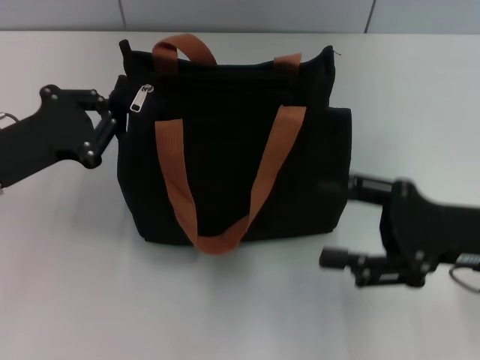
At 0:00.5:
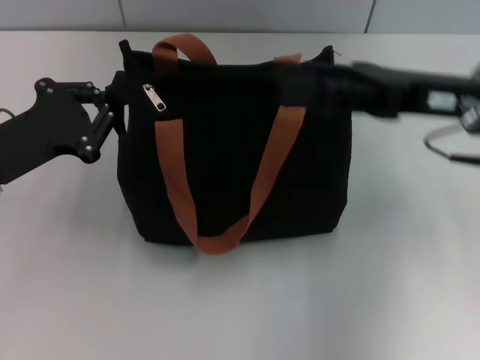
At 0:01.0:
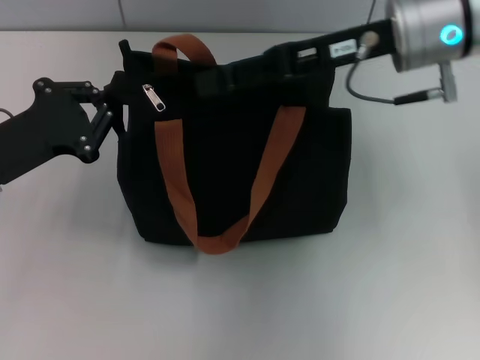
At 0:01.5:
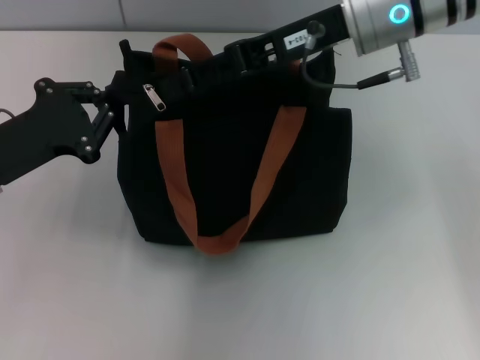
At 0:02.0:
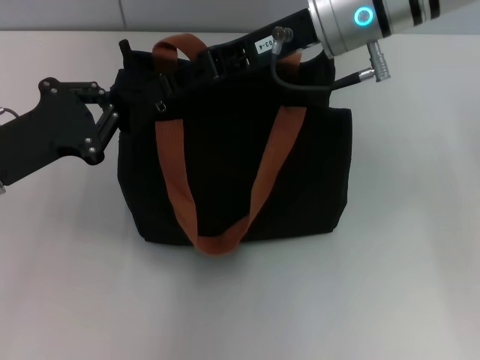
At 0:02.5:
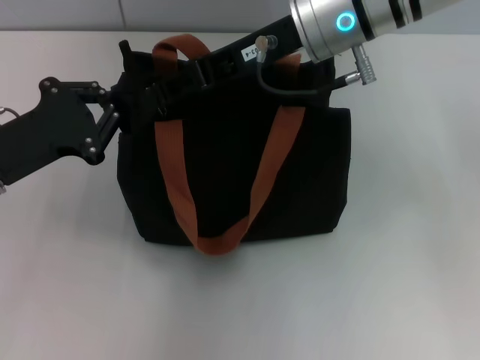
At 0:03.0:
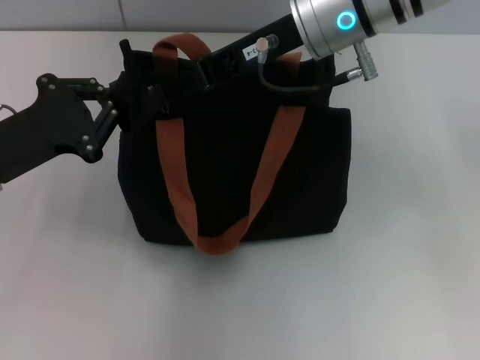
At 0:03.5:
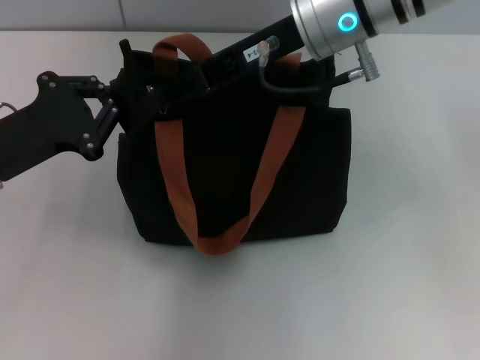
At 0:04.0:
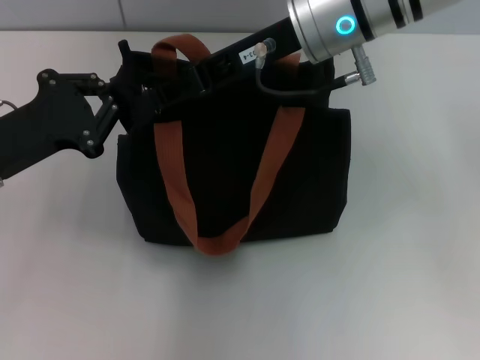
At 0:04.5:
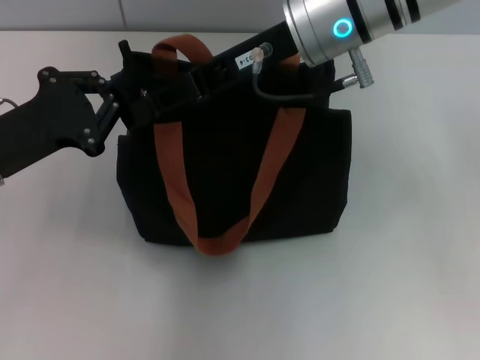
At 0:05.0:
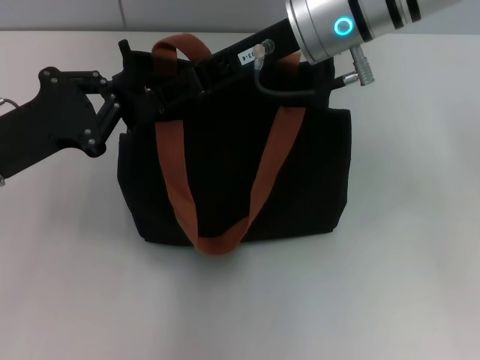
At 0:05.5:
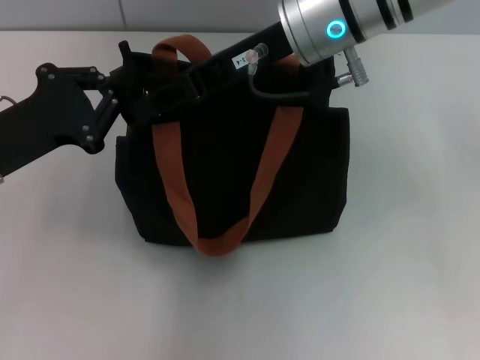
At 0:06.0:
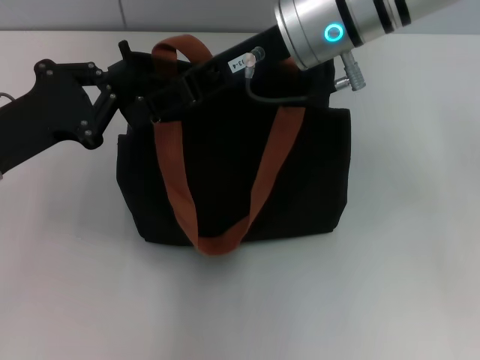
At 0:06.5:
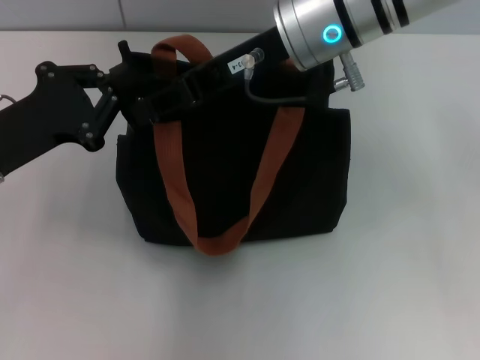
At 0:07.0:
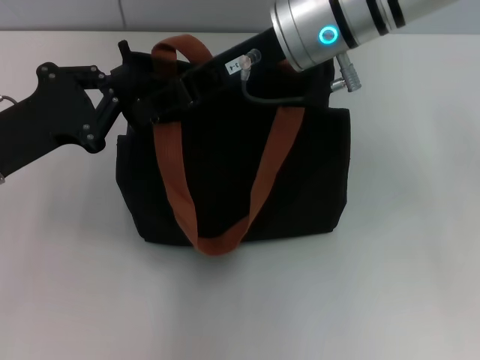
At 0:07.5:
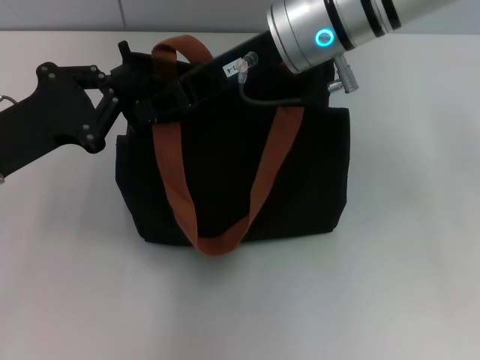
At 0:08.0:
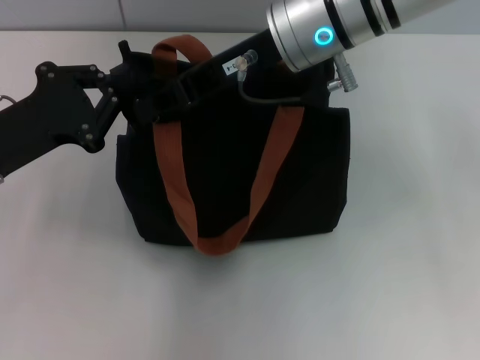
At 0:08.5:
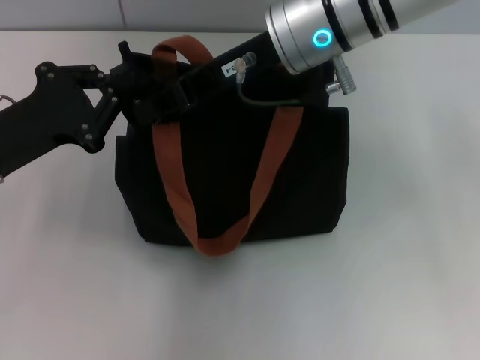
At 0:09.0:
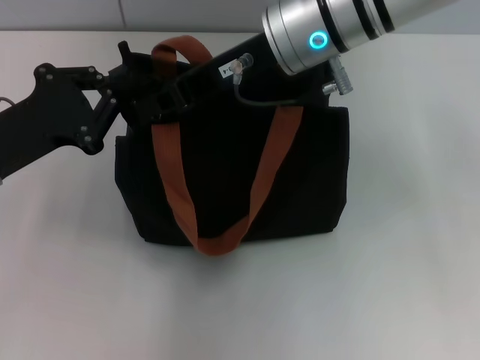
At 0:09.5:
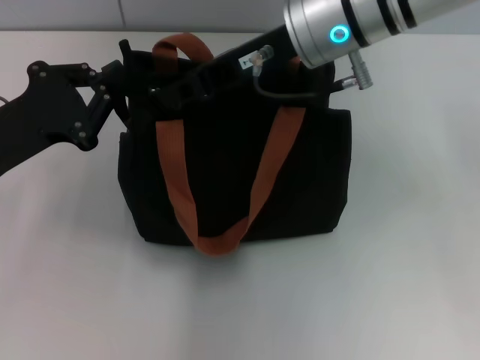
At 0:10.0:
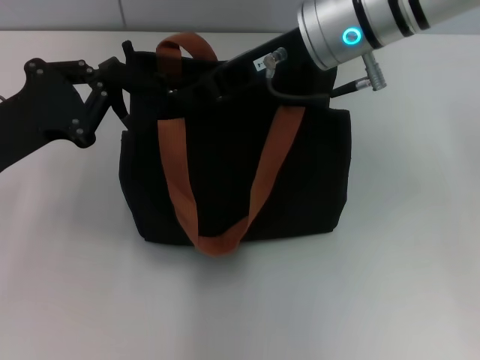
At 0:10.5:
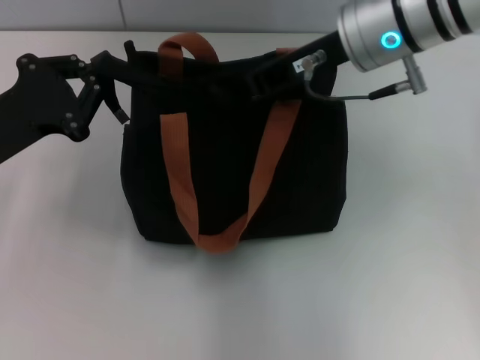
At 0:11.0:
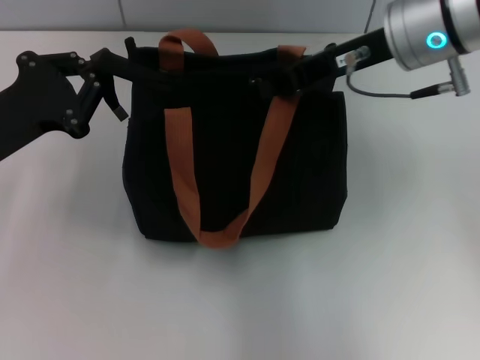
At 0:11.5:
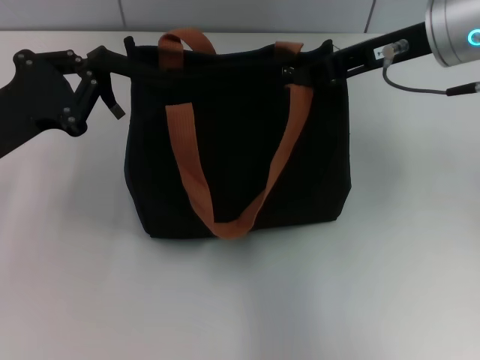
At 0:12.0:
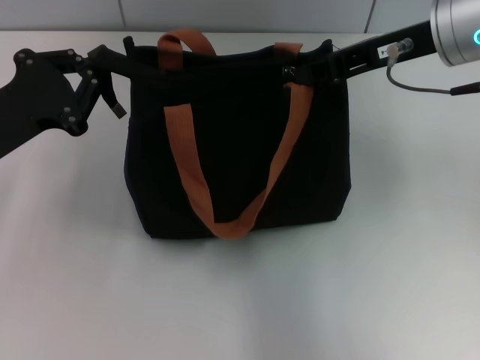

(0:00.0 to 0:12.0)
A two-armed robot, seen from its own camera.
0:00.0 - 0:02.0: The right gripper moves to the left, forward and upward, roughly 25 cm.
0:02.0 - 0:04.0: The grippers move only a little.
0:04.0 - 0:06.0: Neither gripper changes place.
0:06.0 - 0:08.0: Both grippers stay about where they are.
0:08.0 - 0:10.0: There are only small adjustments of the grippers.
0:10.0 - 0:12.0: The right gripper shifts some 10 cm to the right.

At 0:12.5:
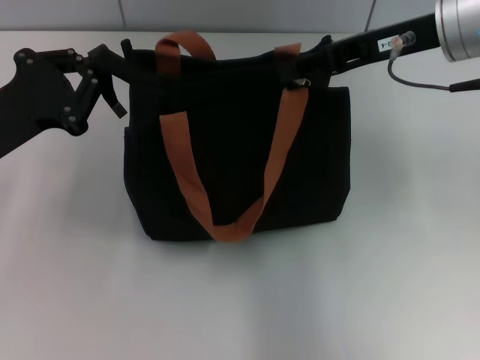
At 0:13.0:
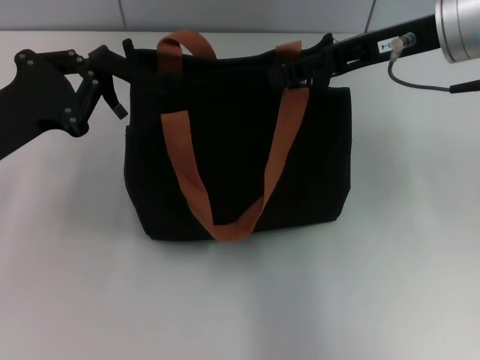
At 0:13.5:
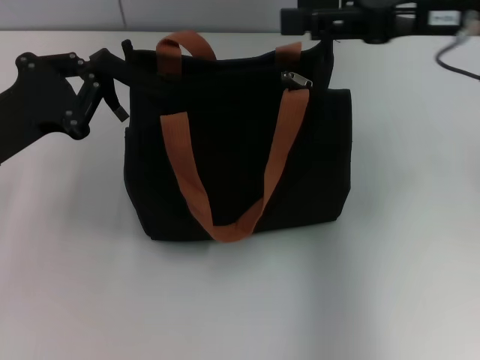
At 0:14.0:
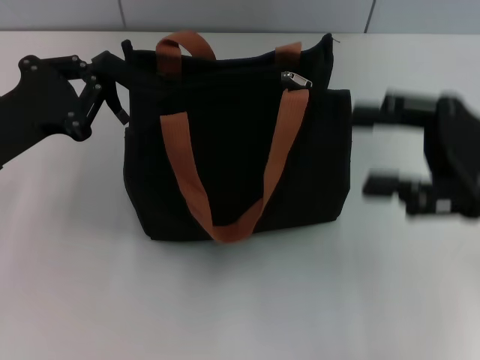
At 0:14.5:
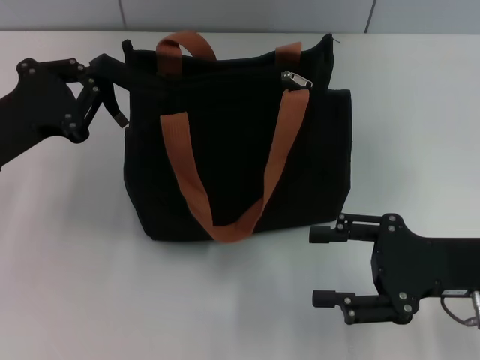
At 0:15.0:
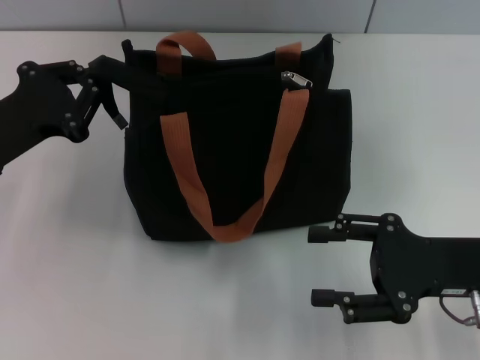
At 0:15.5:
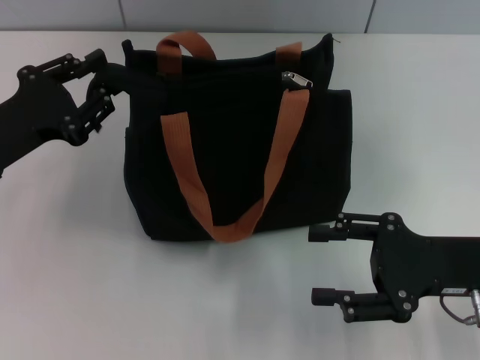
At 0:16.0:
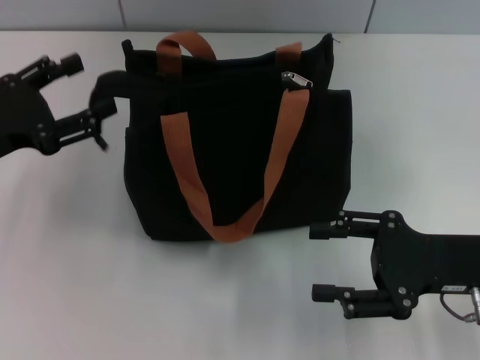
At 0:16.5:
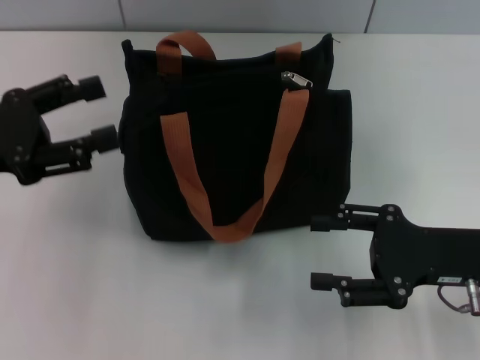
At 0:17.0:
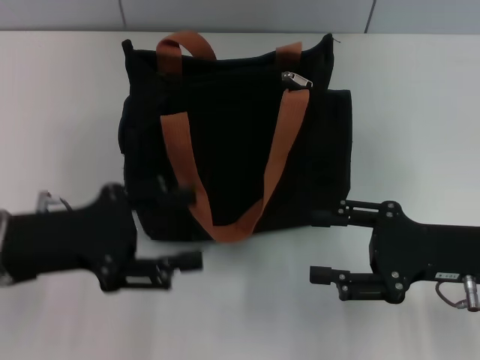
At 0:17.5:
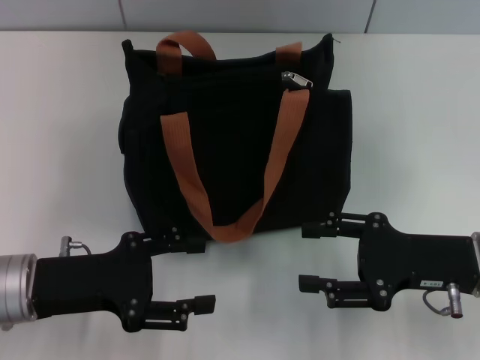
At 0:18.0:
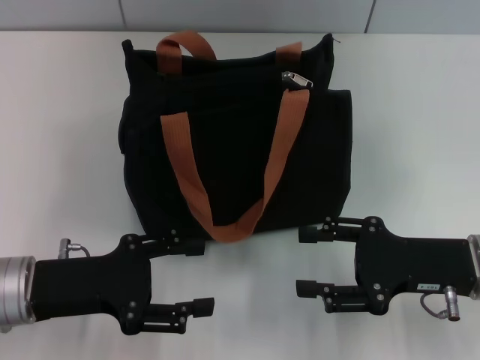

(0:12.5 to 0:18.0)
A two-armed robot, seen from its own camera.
0:12.5 - 0:14.5: The right gripper shifts approximately 20 cm downward, backward and to the right, and opens its fingers.
0:14.5 - 0:16.0: The left gripper opens its fingers.
0:16.0 - 0:18.0: The left gripper heads to the right, backward and downward, covering about 10 cm.

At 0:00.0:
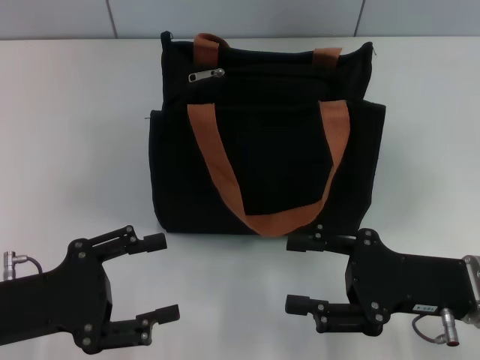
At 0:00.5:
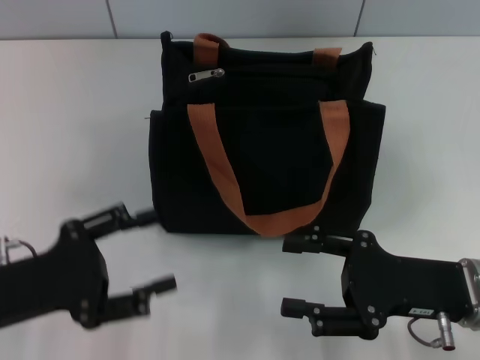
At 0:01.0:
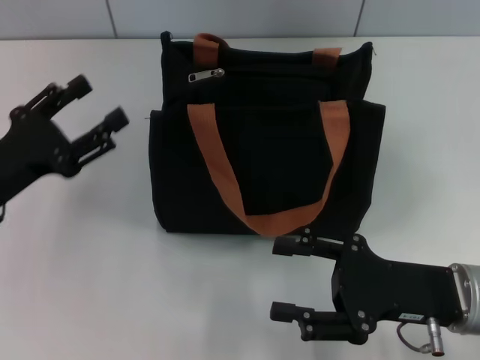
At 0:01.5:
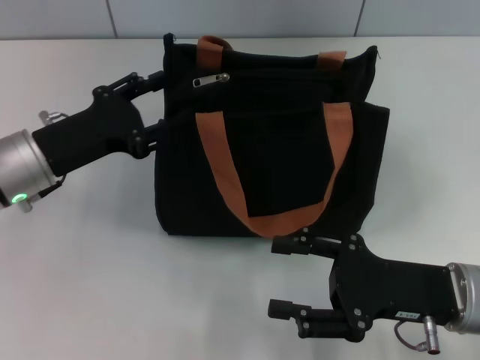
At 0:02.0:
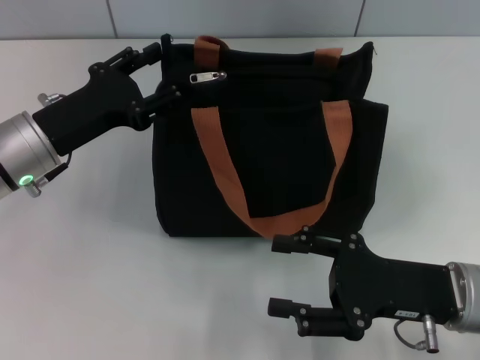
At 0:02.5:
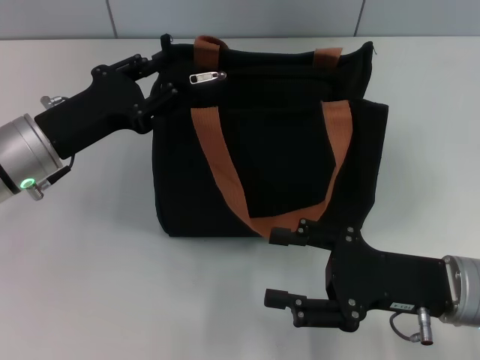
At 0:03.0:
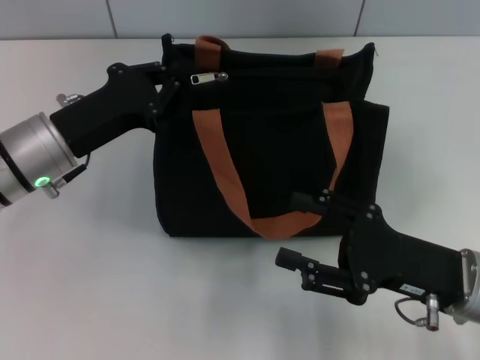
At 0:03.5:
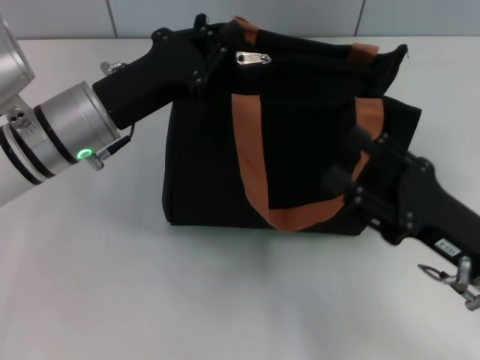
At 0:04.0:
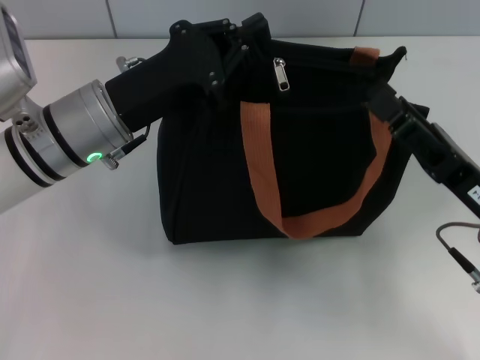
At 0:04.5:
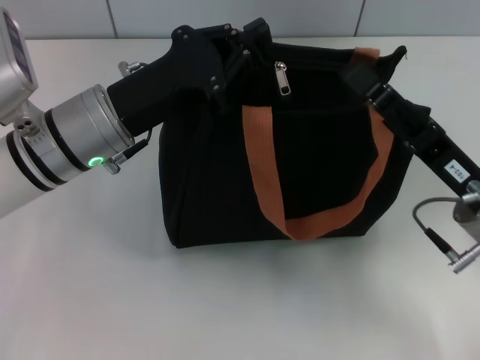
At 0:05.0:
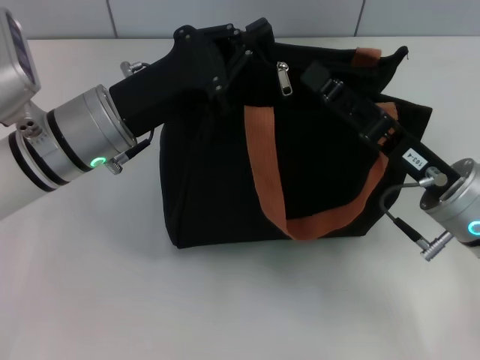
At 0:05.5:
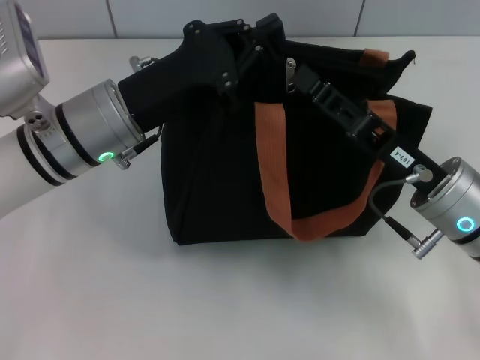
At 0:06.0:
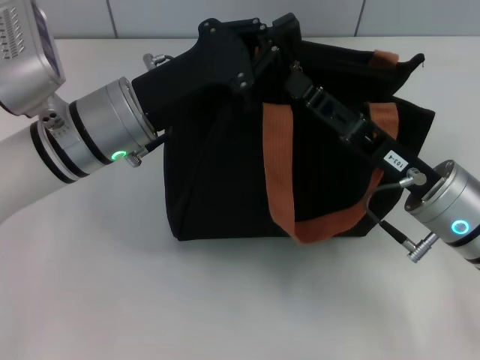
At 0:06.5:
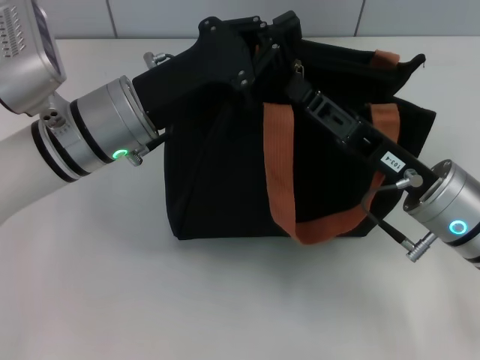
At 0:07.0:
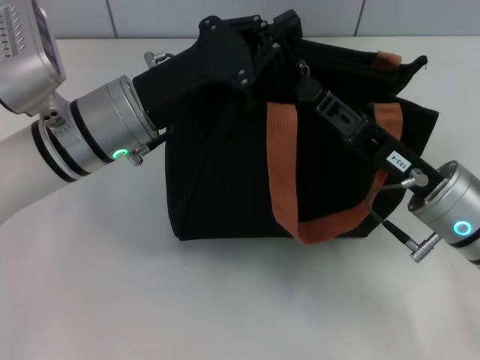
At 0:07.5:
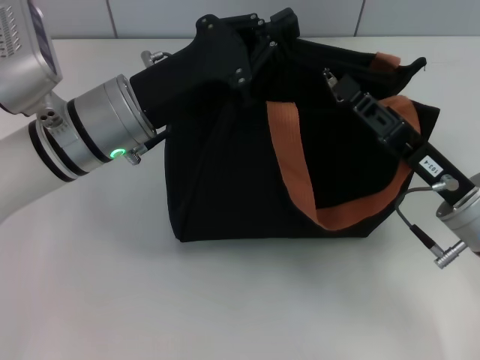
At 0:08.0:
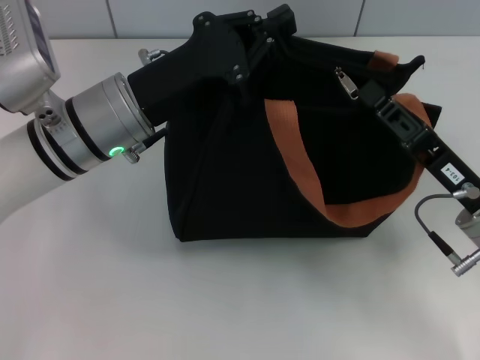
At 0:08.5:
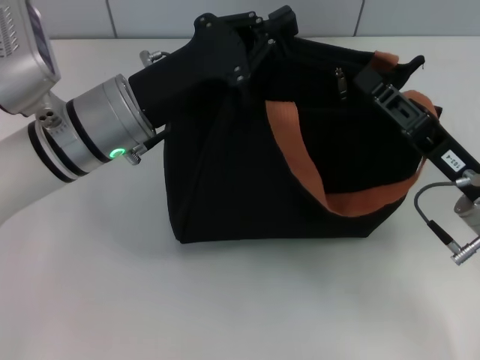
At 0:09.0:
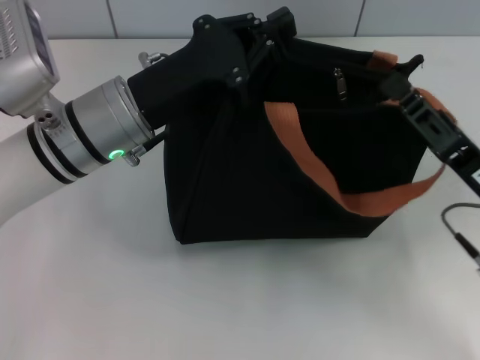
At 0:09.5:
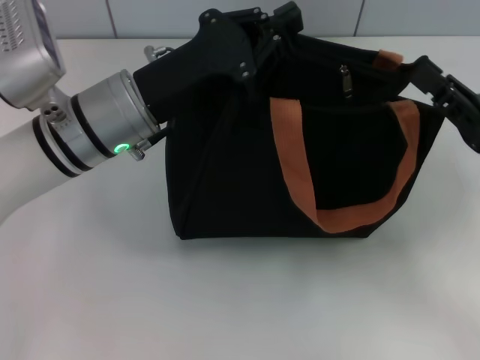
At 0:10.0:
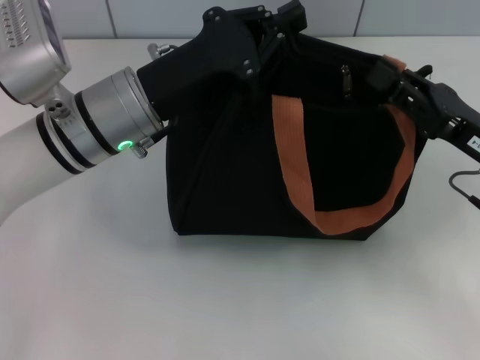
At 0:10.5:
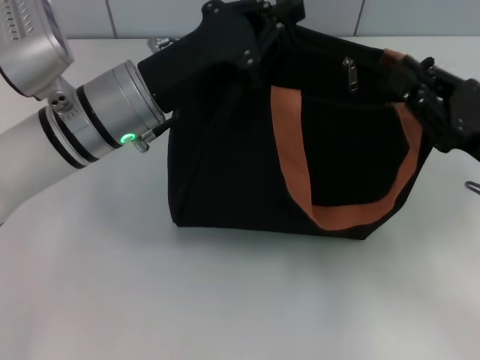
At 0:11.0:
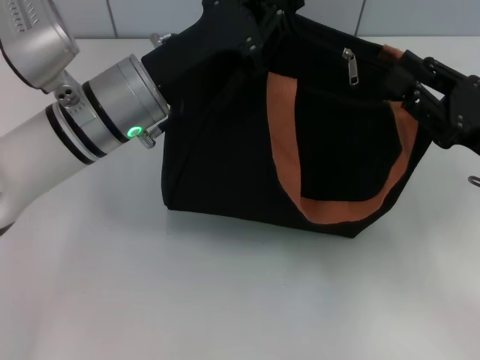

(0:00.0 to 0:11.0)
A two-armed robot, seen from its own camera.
0:00.0 - 0:02.0: The left gripper shifts about 15 cm forward.
0:02.0 - 0:03.5: The left gripper shifts roughly 5 cm to the right, and closes up.
0:03.5 - 0:05.5: The right gripper goes about 5 cm forward, and closes its fingers.
0:05.5 - 0:07.5: The right gripper closes its fingers.
0:07.5 - 0:09.0: The grippers stay close to where they were, moving slightly.
0:09.0 - 0:11.0: The right gripper shifts by roughly 5 cm.
